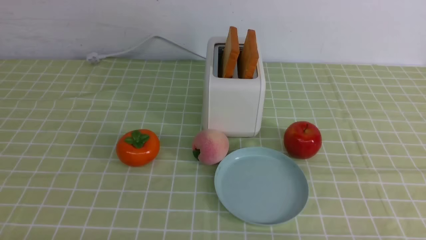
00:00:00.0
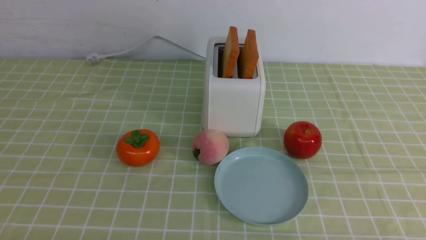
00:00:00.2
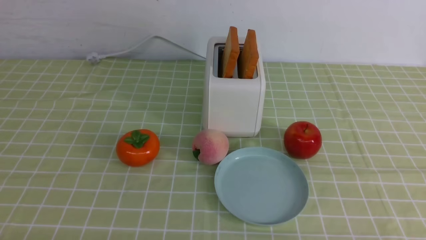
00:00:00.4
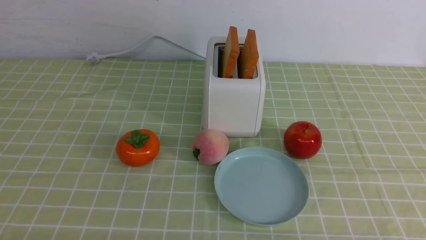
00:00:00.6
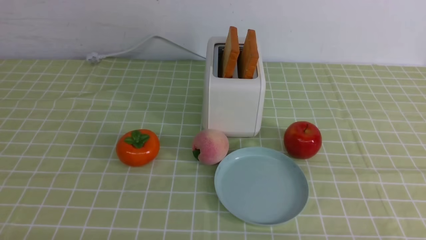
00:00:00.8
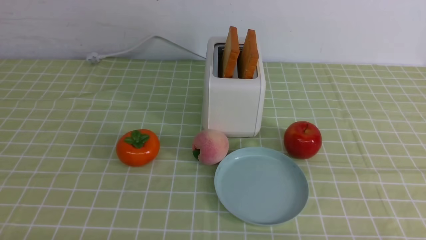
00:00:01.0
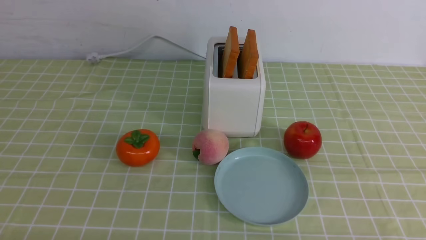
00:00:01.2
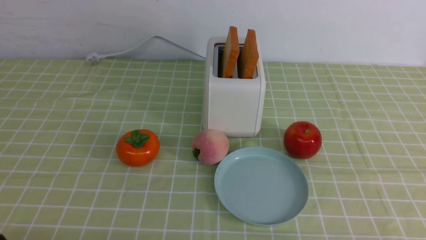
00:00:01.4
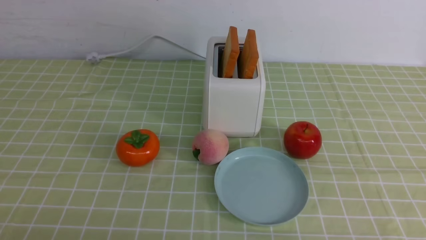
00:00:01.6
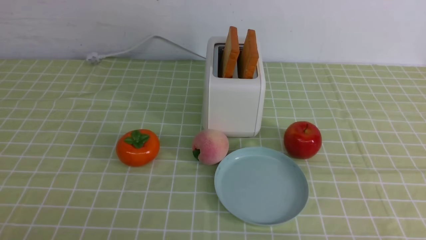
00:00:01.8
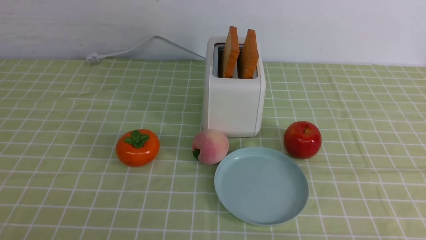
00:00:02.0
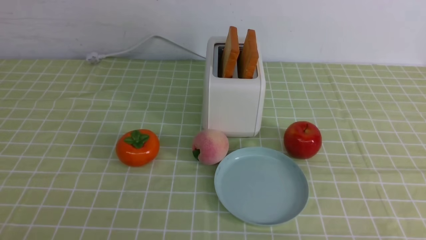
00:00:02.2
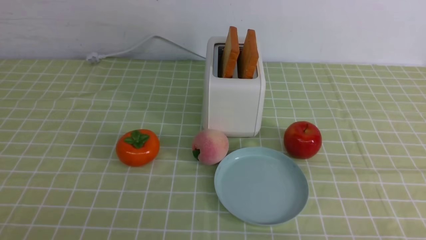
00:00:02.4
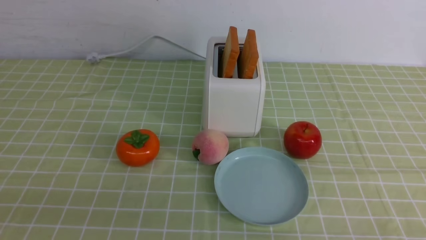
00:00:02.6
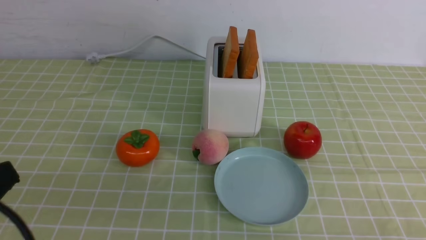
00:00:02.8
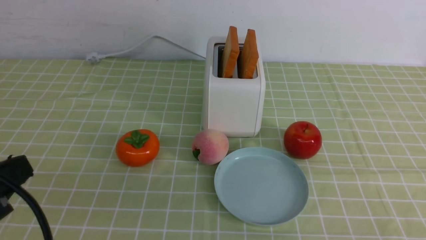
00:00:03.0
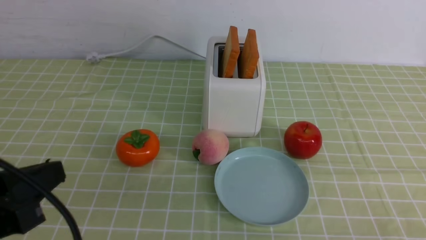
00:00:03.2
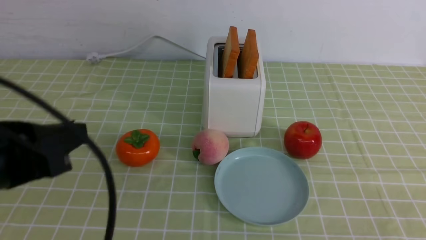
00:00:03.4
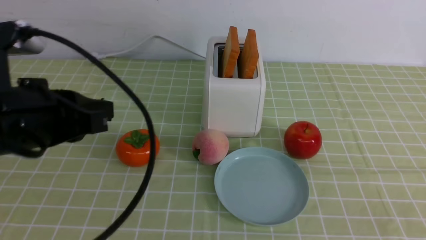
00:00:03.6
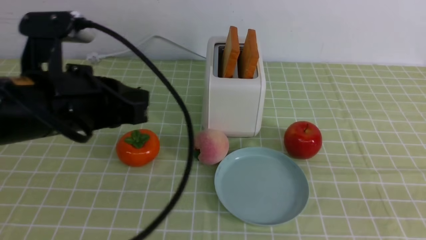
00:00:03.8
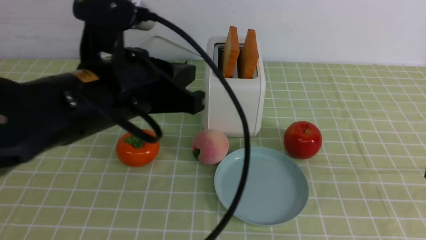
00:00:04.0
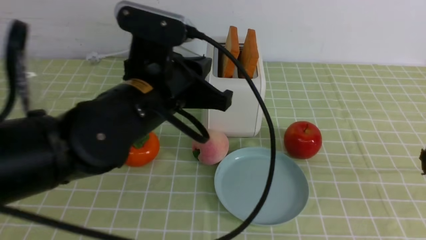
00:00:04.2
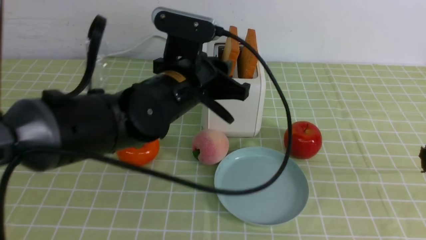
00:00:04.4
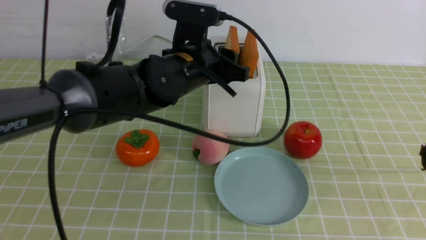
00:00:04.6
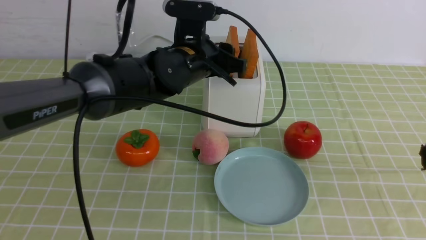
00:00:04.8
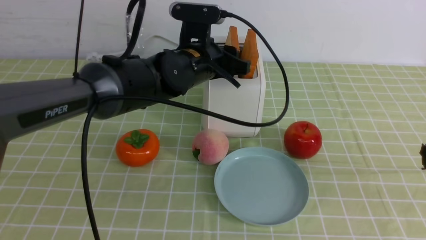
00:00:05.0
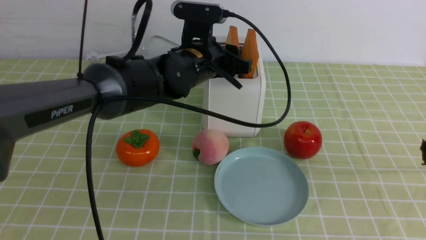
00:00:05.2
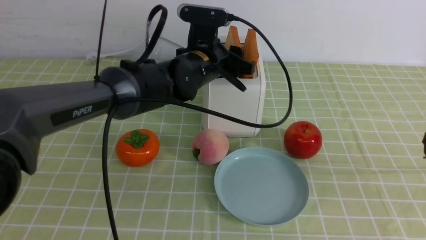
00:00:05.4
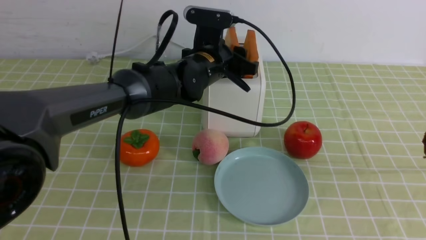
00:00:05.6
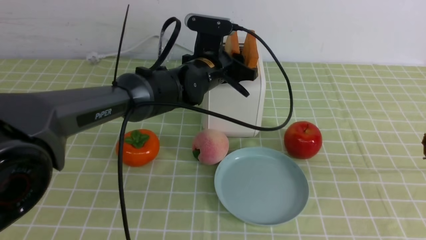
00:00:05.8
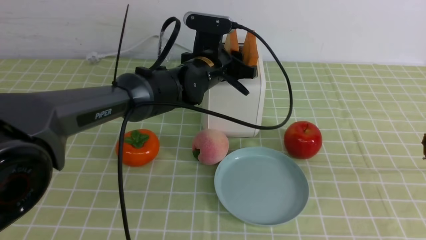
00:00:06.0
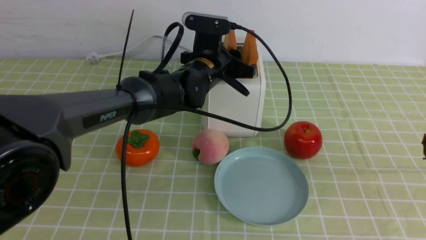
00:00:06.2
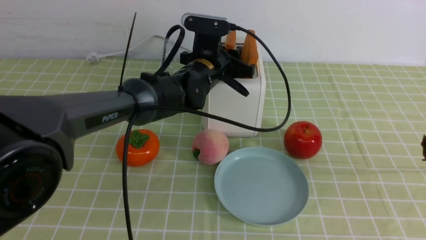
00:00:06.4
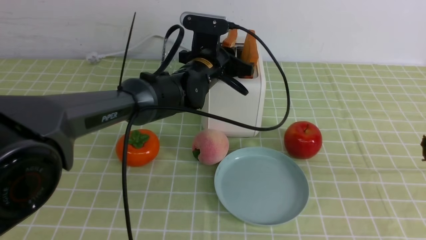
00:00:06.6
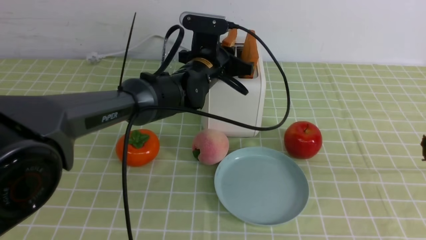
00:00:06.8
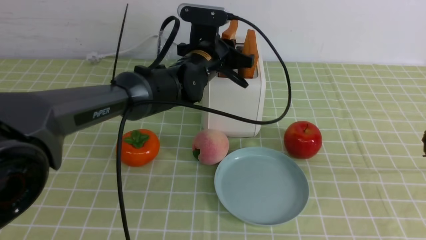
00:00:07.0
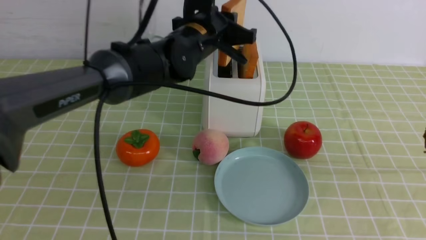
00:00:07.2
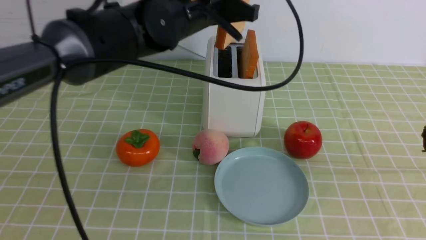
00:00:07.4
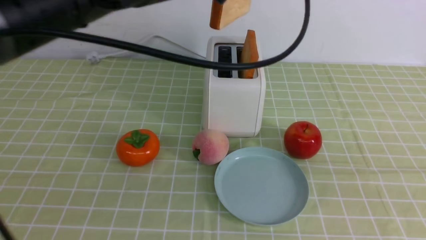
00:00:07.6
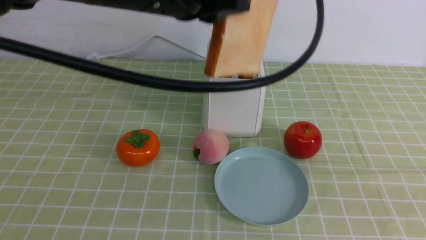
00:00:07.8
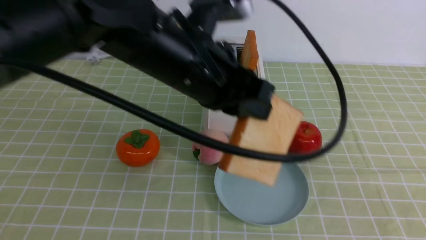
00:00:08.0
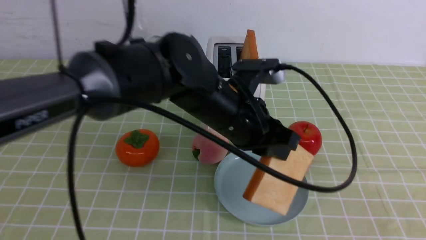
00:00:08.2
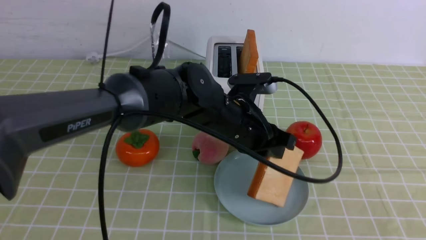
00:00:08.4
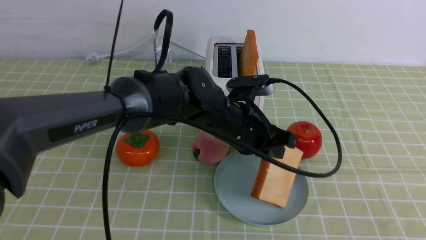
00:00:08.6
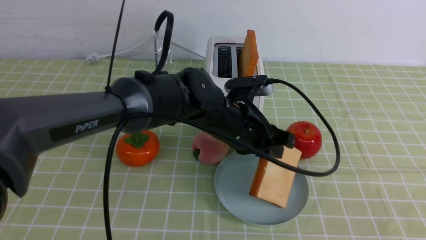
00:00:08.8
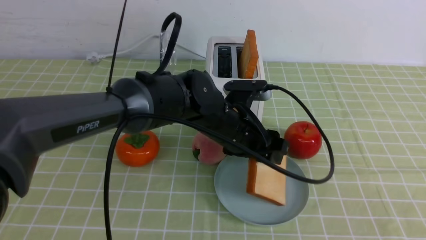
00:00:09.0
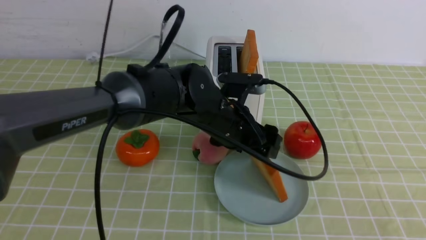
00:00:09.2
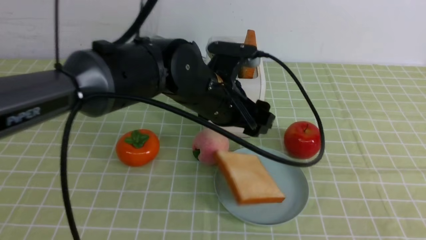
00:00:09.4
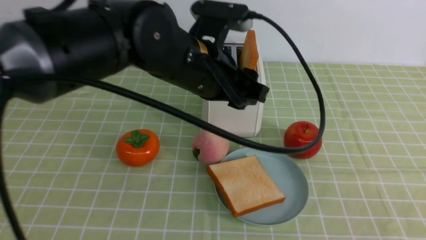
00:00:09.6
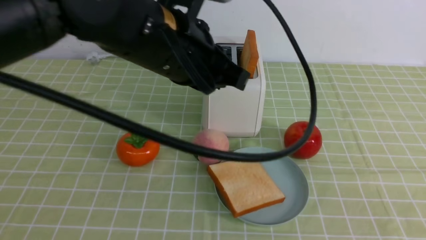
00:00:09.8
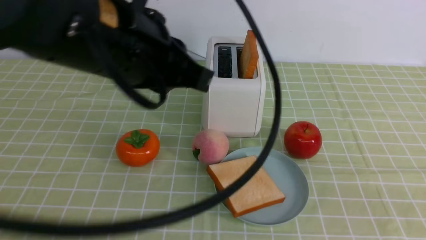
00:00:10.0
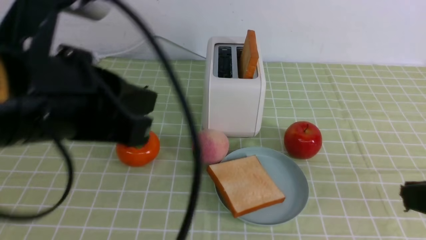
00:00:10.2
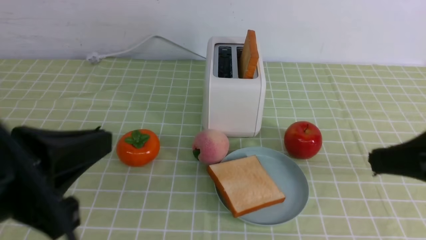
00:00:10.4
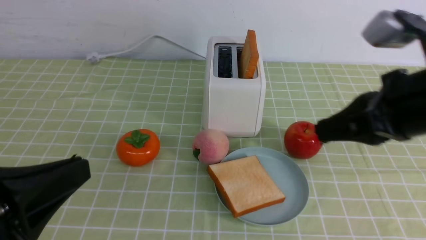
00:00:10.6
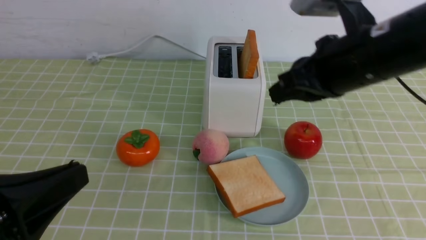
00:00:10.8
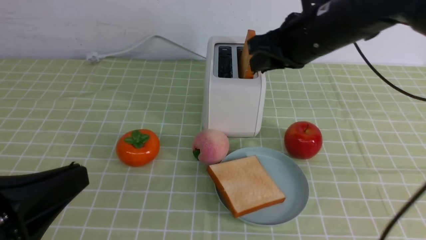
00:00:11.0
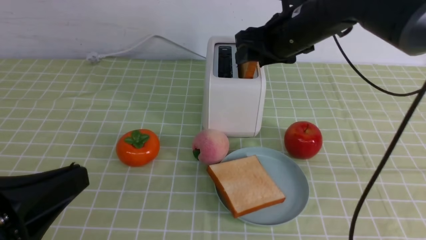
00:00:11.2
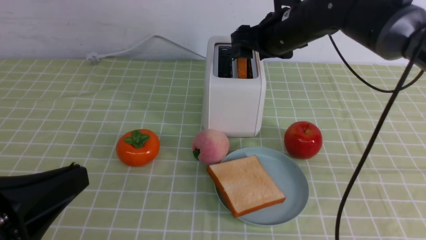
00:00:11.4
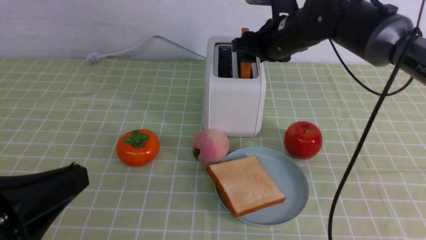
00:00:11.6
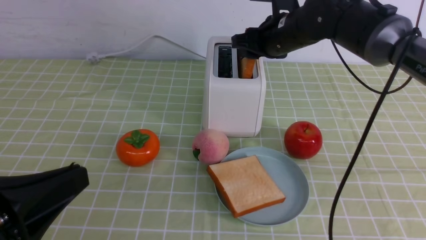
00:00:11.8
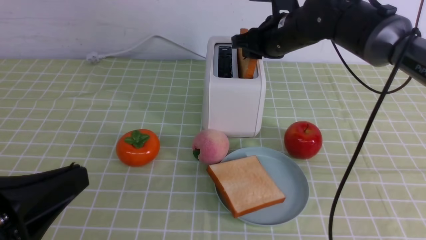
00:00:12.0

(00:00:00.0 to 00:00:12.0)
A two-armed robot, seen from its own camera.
Task of the whole recording: take toasted bread from bread machine on green coffee tablecloth place on plate.
Step, 00:00:00.0 - 00:00:07.2: use the left arm to take out a slice of bread.
Step, 00:00:07.6 - 00:00:09.4: use the left arm to put a slice of bread into the empty plate.
00:00:01.6 - 00:00:03.0: The left gripper goes about 10 cm upward, and closes up.
00:00:03.0 - 00:00:04.4: The right gripper travels upward by roughly 15 cm, while the left gripper shifts some 30 cm forward and to the right, and opens its fingers.
00:00:04.4 - 00:00:06.0: The left gripper is displaced forward and downward by some 15 cm.
00:00:06.0 - 00:00:07.6: The left gripper heads upward and backward, covering roughly 20 cm, and closes.
00:00:07.6 - 00:00:09.0: The right gripper heads backward, covering approximately 5 cm; the left gripper heads downward, covering approximately 20 cm, and opens its fingers.
00:00:09.0 - 00:00:10.4: The left gripper goes approximately 30 cm backward, to the left and upward, and closes; the right gripper goes some 15 cm forward.
00:00:10.4 - 00:00:12.0: The right gripper travels forward by some 30 cm, and opens up; the left gripper moves roughly 5 cm.

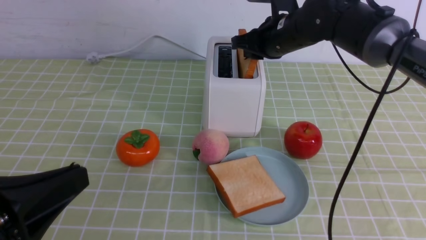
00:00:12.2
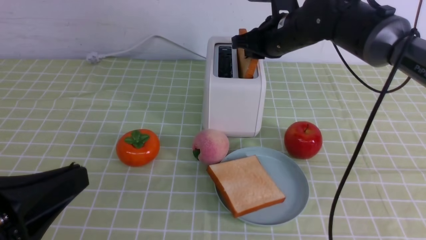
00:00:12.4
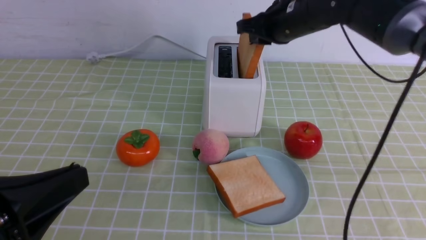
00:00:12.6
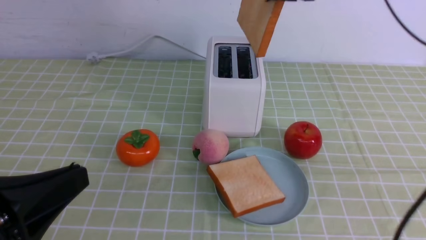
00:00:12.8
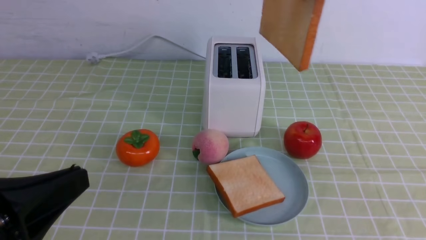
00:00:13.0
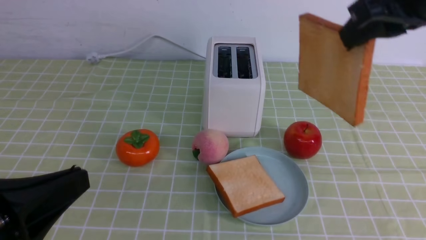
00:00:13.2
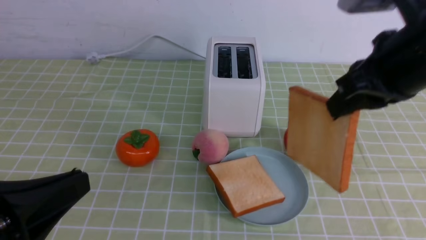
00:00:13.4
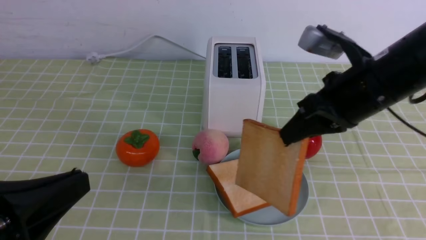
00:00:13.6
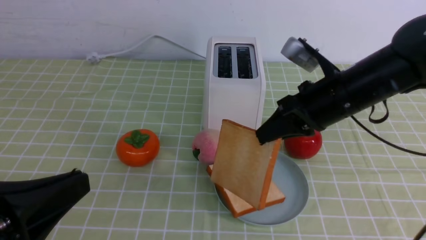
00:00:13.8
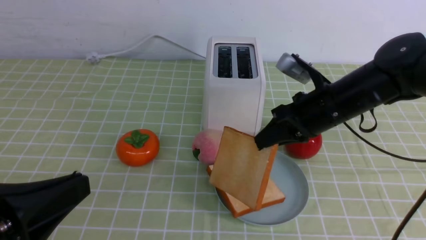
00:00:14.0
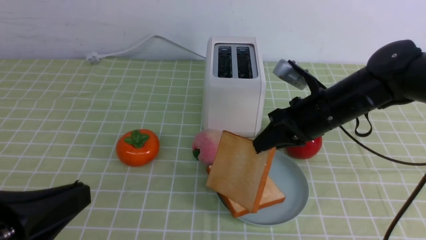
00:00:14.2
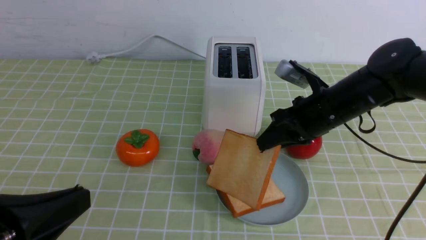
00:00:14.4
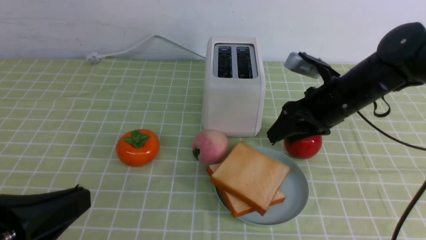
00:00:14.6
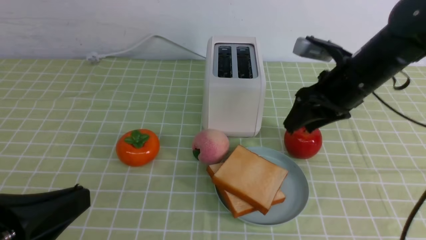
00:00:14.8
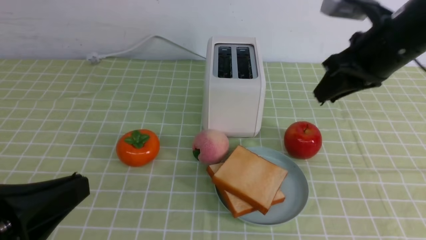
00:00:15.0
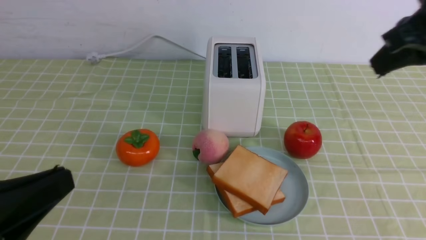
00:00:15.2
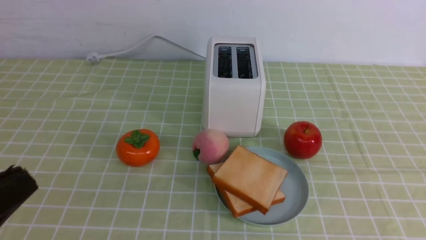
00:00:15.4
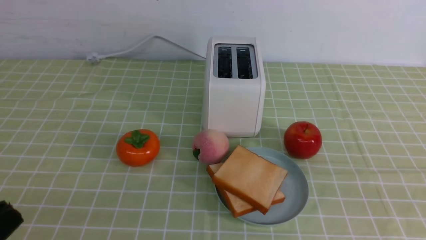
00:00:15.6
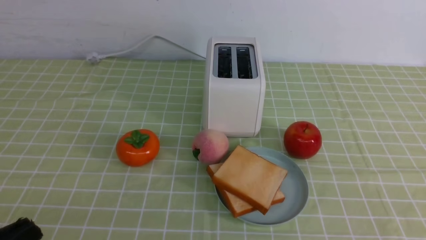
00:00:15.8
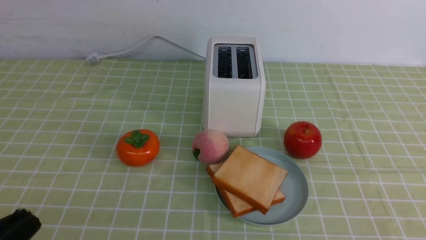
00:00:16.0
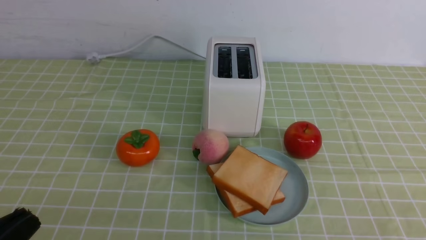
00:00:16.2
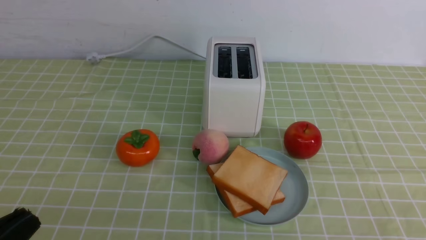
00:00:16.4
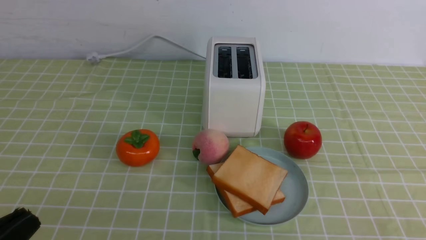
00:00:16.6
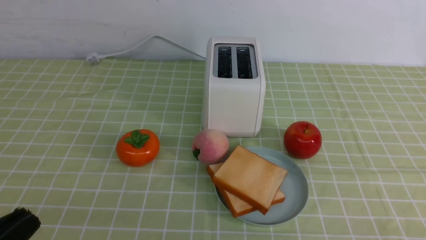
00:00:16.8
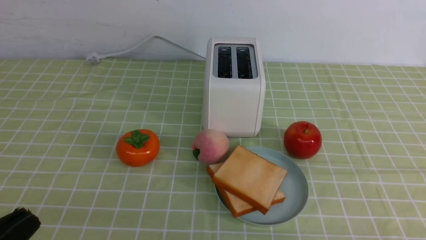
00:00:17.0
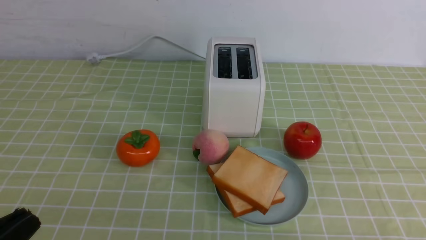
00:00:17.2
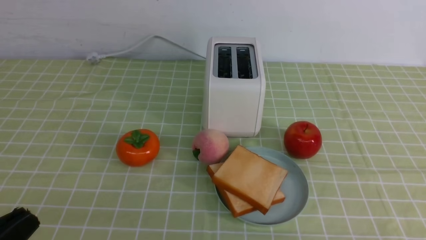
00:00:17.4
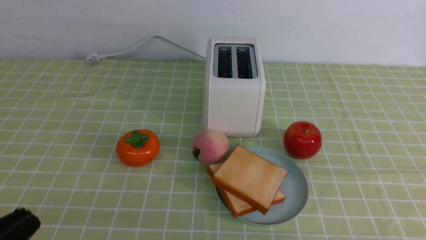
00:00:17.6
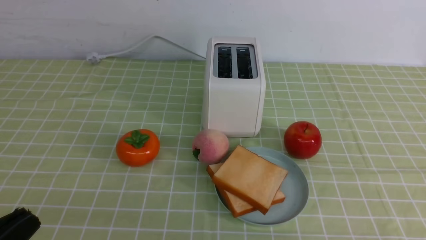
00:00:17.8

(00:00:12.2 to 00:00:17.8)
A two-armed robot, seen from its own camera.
Task of the whole recording: take toasted bread from bread machine on green coffee tablecloth place on plate.
Step, 00:00:13.0 - 00:00:14.2: use the right arm to put a slice of bread into the plate.
00:00:12.2 - 00:00:13.6: The right gripper goes approximately 15 cm backward.
00:00:13.6 - 00:00:15.0: The right gripper moves roughly 5 cm, and opens, then closes again.
00:00:15.0 - 00:00:16.4: The left gripper changes place by about 5 cm, while the right gripper goes about 30 cm backward and downward, and closes.
